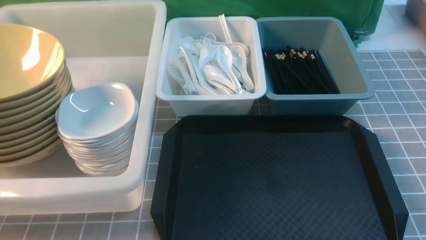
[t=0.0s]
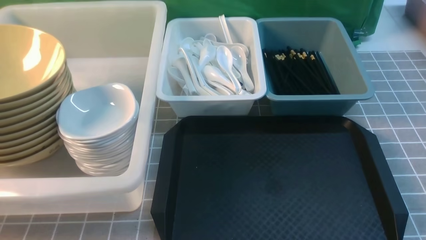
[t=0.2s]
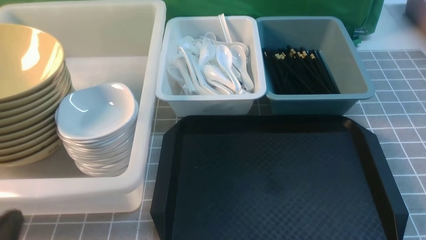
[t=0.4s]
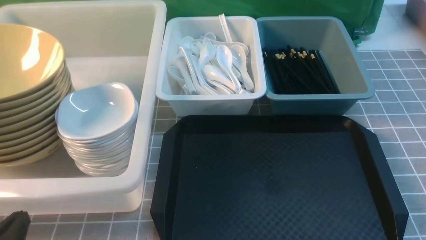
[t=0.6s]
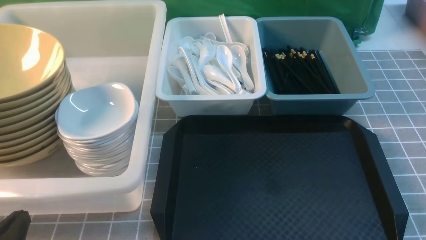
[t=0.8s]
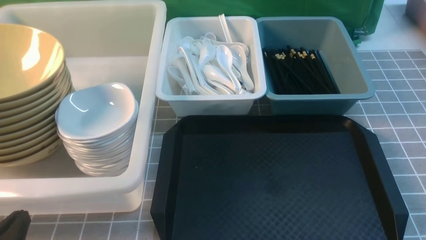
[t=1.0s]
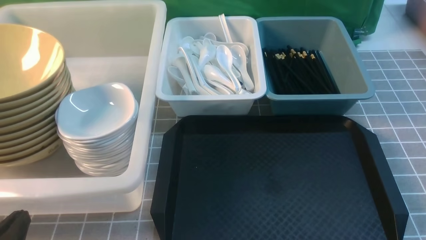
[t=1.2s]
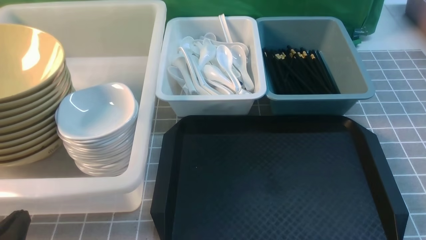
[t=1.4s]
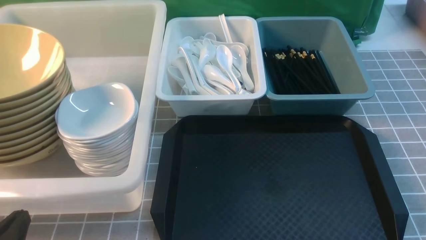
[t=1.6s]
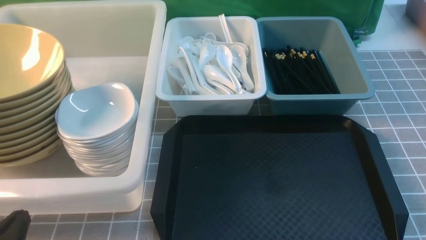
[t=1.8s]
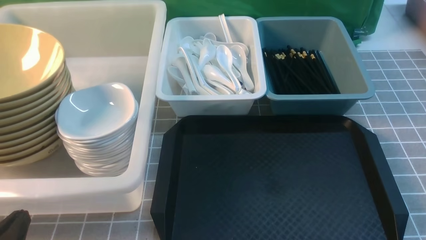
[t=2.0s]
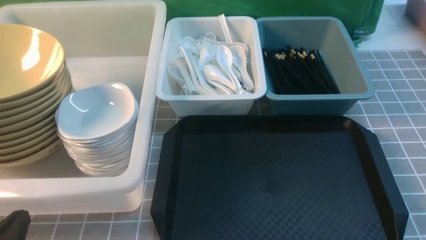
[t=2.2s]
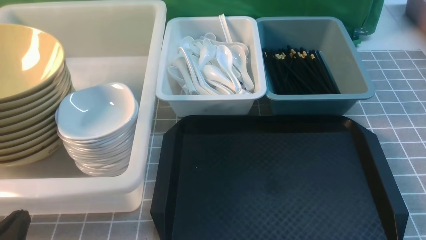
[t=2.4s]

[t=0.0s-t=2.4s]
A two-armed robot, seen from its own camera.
Task of the whole recording: on grey table put chopsticks spoon bowls plates into blue grey white boxes.
t=0.0s to t=1.2s: The left gripper moves downward, some 10 cm.
t=1.2s to t=2.4s: Both grippers stay put.

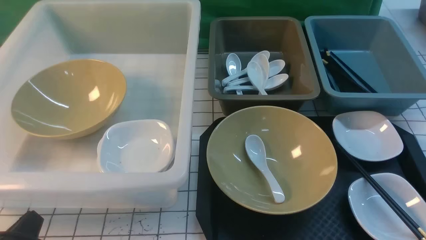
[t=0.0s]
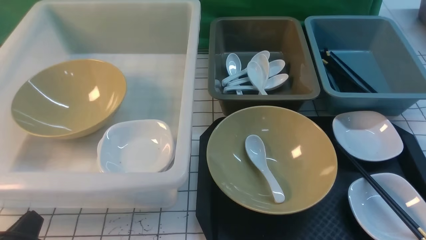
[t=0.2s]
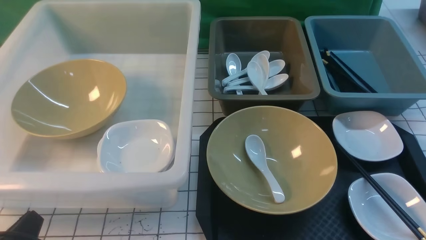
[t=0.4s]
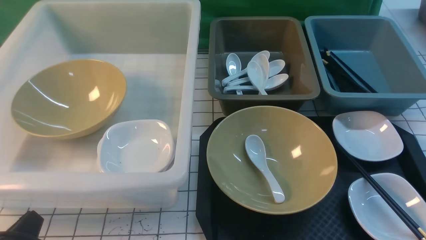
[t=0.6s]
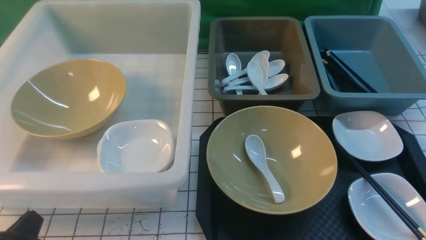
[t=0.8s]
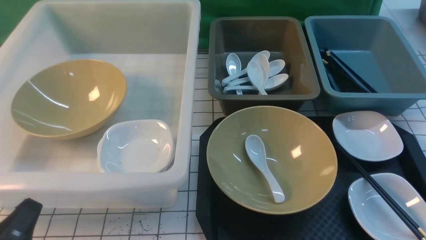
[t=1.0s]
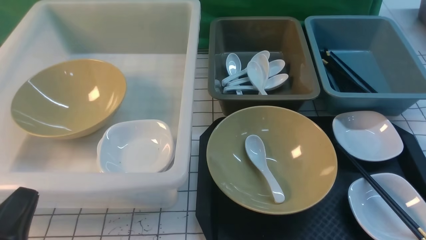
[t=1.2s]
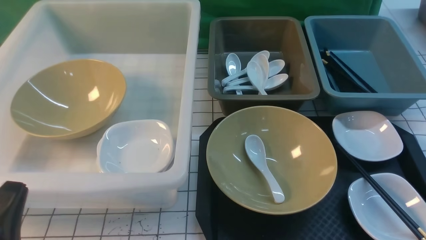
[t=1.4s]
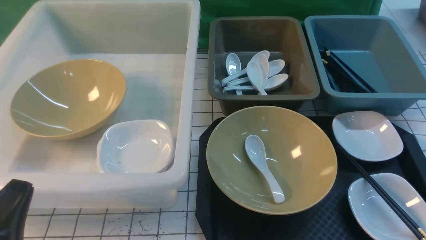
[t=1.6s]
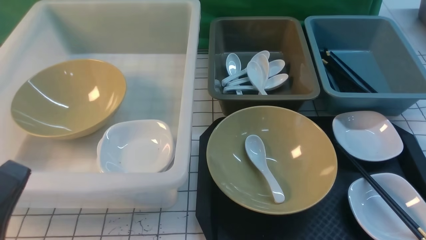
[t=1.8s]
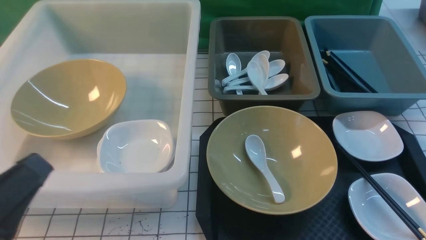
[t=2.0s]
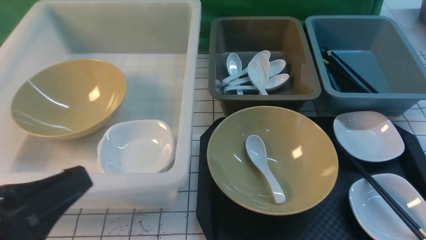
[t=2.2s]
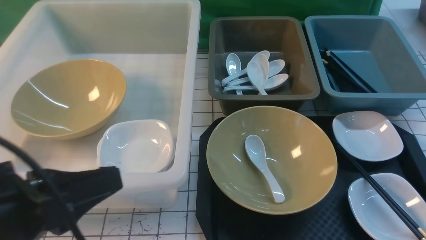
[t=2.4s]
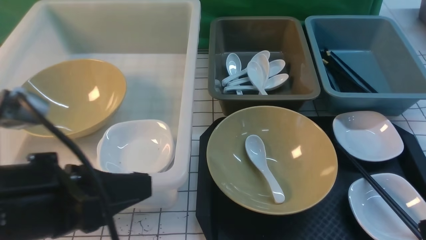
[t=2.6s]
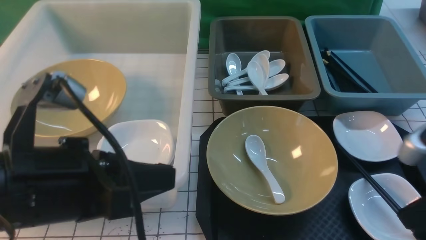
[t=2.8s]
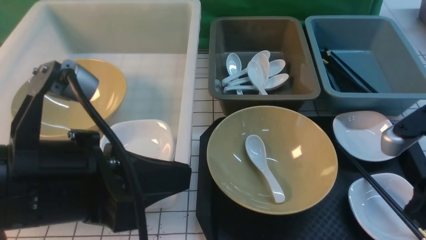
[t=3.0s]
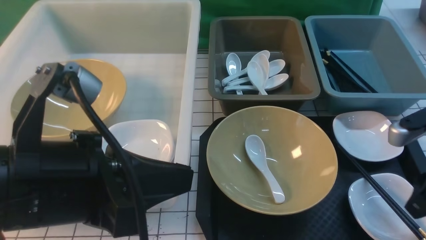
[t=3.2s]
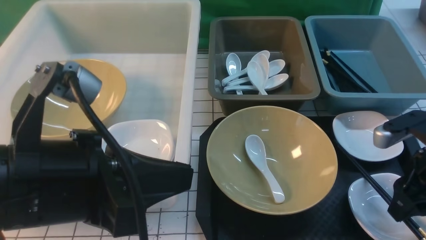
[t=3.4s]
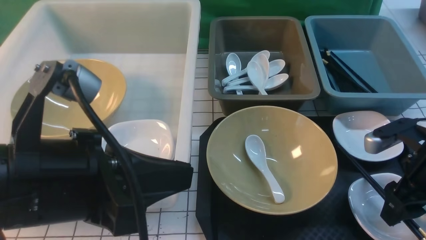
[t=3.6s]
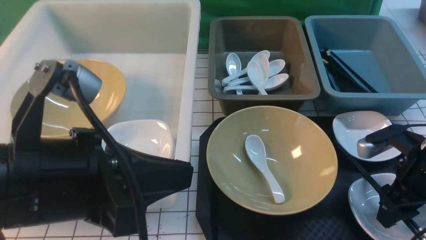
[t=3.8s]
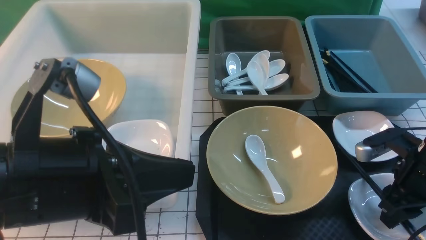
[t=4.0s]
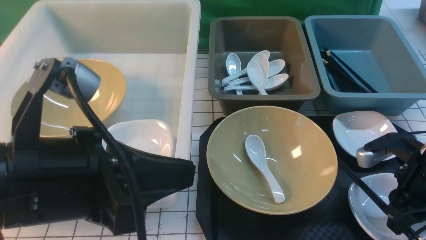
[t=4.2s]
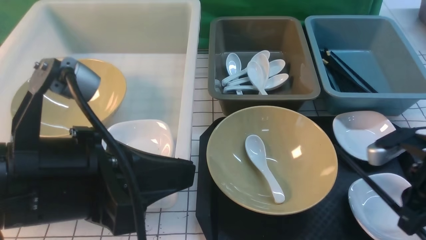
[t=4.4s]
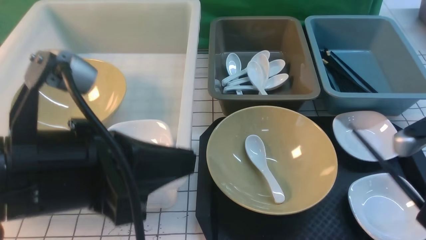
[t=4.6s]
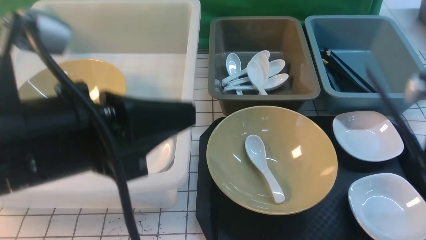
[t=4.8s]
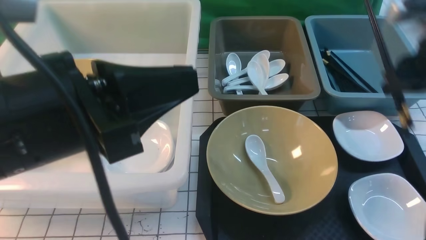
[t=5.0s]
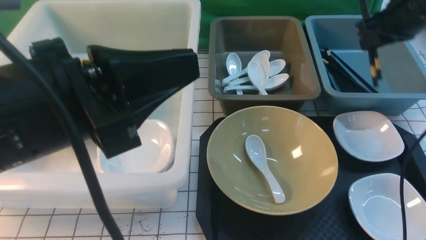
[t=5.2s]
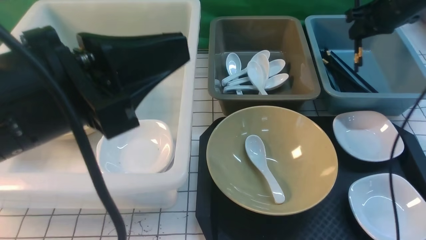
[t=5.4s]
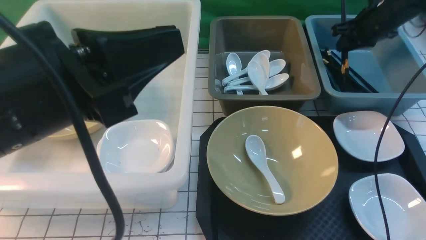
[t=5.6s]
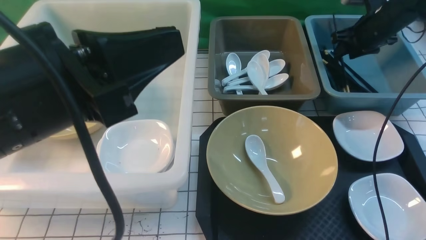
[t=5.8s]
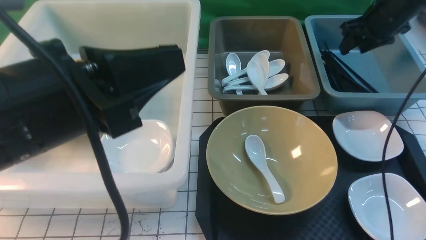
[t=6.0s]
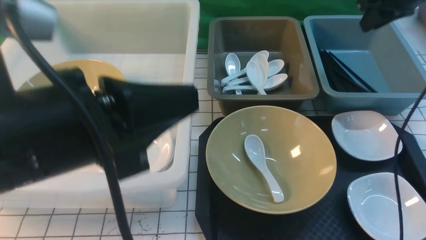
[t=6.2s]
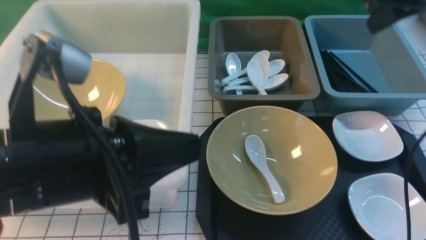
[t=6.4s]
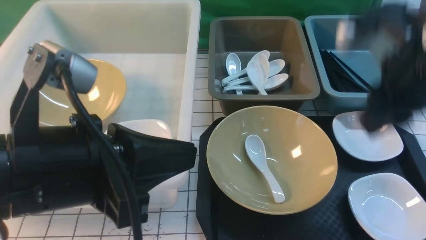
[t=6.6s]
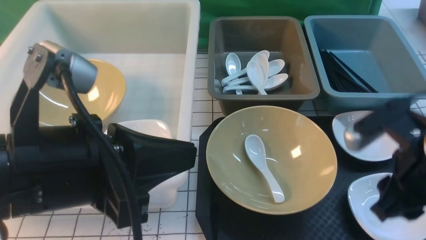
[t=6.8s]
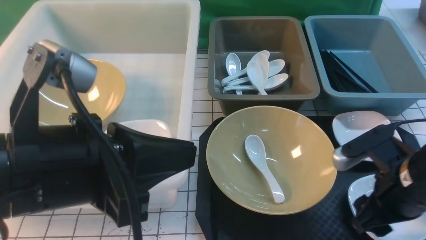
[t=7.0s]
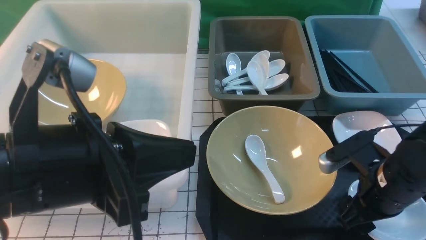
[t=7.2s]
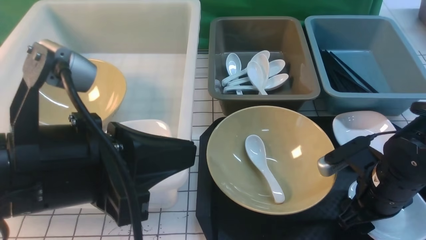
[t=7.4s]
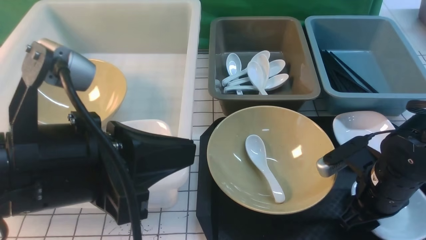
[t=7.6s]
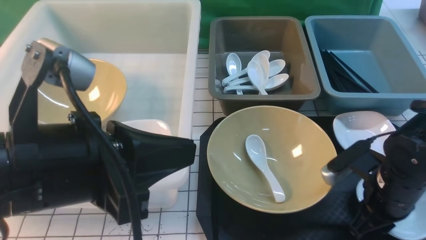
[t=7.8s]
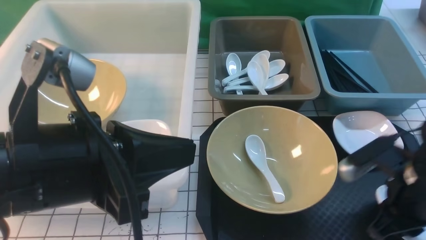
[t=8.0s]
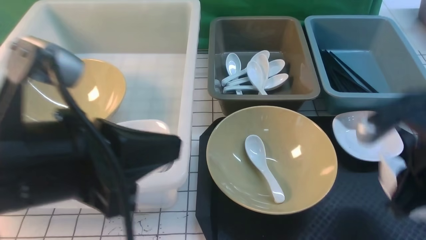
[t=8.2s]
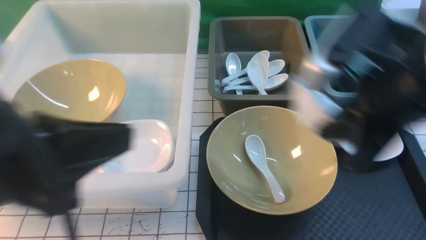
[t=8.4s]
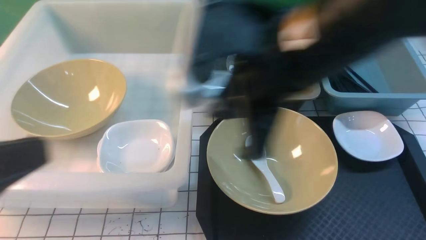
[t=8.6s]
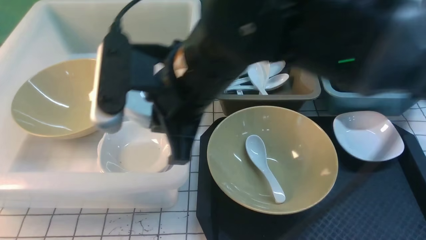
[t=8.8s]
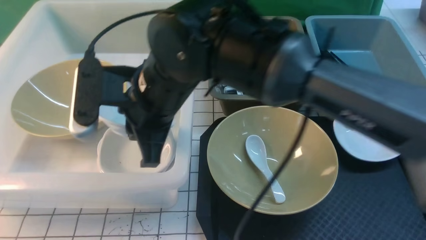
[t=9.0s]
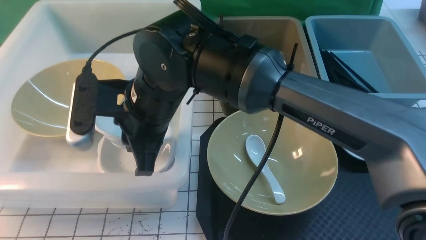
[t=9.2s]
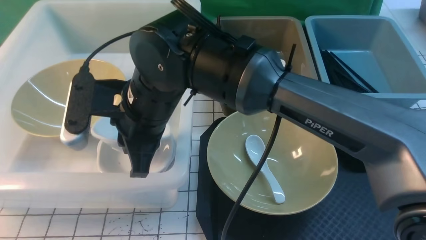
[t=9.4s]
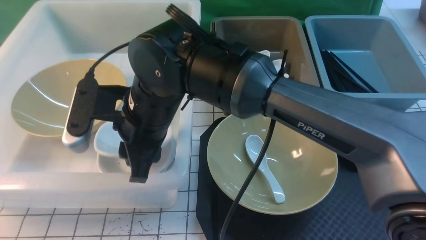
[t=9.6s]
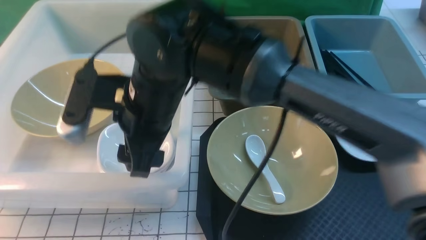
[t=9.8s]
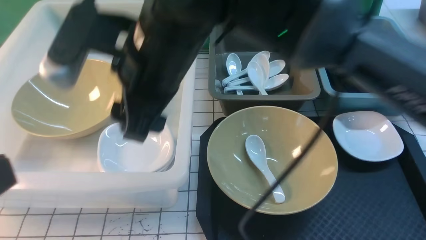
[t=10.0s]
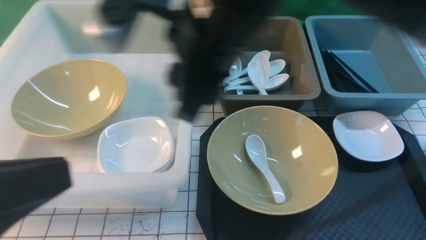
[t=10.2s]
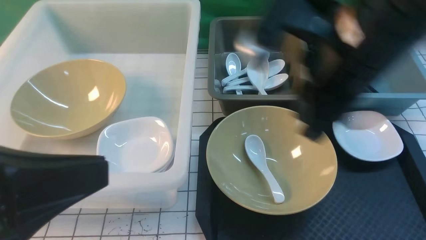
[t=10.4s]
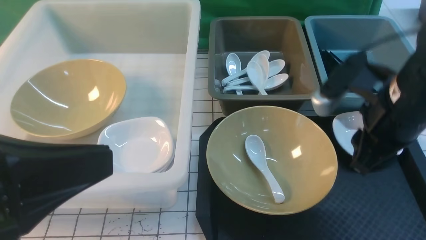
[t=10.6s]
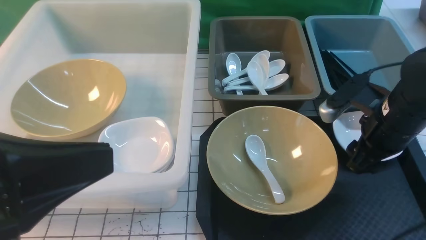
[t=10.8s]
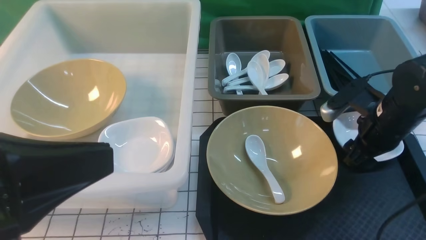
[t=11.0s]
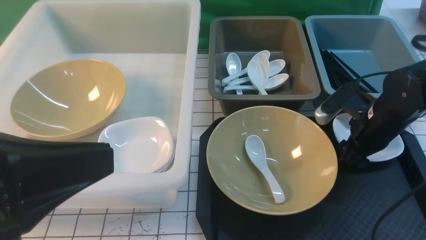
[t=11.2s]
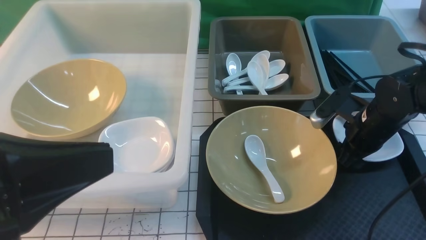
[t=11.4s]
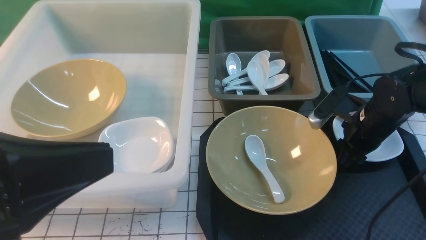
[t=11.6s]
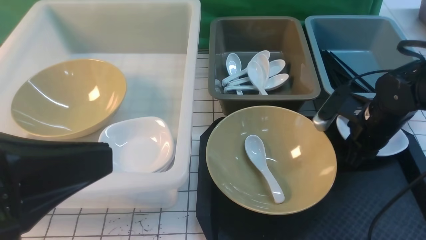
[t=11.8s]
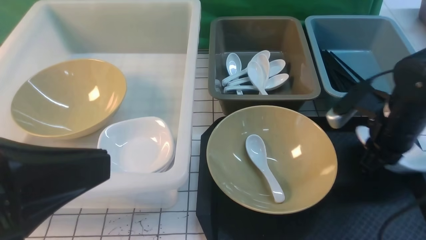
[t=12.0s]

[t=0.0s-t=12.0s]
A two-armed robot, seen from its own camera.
Task of the whole recording: on white black table put chopsticks spoon bowls plates into blue grey white boxes.
Step, t=0.0s to t=5.0s: use the right arm to grab the chopsticks.
Step, t=5.2s to t=6.0s: use the right arm to put the chopsticks into the small storage box on the right.
Step, t=6.2s to t=8.2s: use the right arm to grab the plate.
Step, t=8.4s to t=10.0s: use the right arm to put the plate into the large storage box on the left.
Step, t=10.2s to t=11.8s: use the right arm to grab the plate.
t=1.6s to t=3.0s: The left gripper is displaced upward, to the right and forward by roughly 15 cm; the right gripper shifts some 15 cm forward and upward.
t=3.0s to t=4.4s: The right gripper shifts roughly 5 cm downward, and opens, then closes once more.
t=4.4s to t=6.0s: The right gripper goes roughly 25 cm forward, and opens up.
t=6.0s to t=7.6s: The right gripper shifts approximately 30 cm backward and downward, and closes, then reopens.
t=7.6s to t=9.0s: The right gripper heads to the left and upward, covering approximately 35 cm, and closes up. The left gripper goes some 15 cm to the left and backward.
t=9.0s to t=10.4s: The right gripper is displaced to the right by roughly 20 cm, and opens; the left gripper heads to the right, covering about 5 cm.
t=10.4s to t=12.0s: The right gripper is displaced downward and to the right by approximately 15 cm, and closes its fingers.

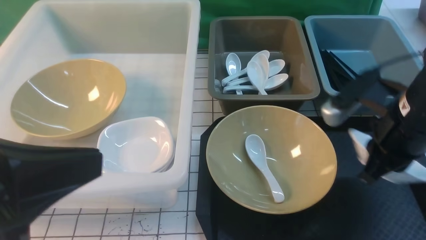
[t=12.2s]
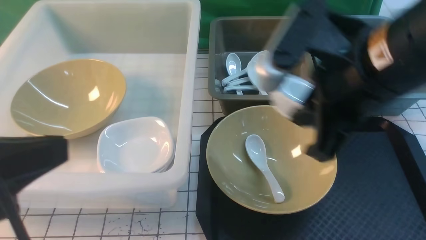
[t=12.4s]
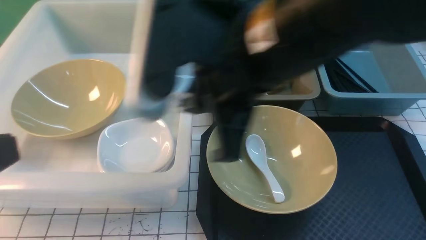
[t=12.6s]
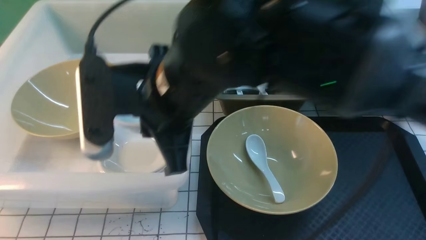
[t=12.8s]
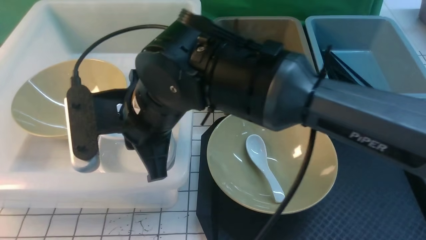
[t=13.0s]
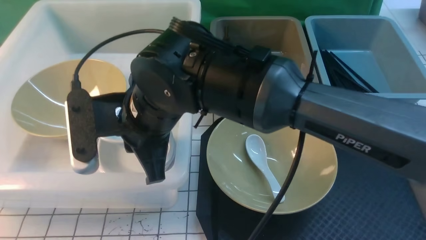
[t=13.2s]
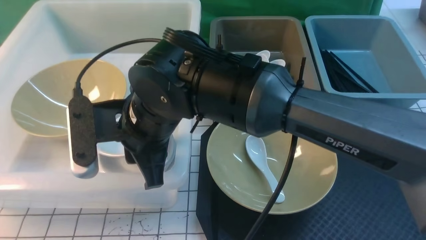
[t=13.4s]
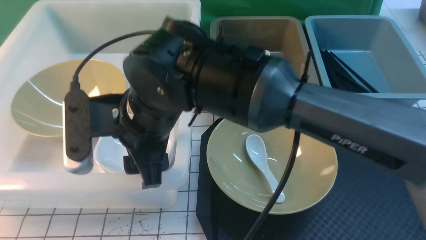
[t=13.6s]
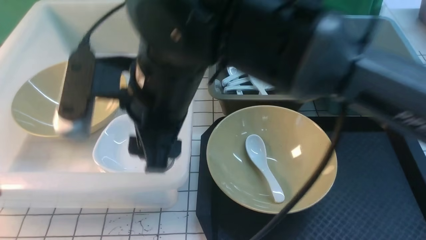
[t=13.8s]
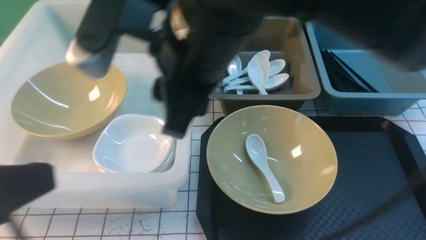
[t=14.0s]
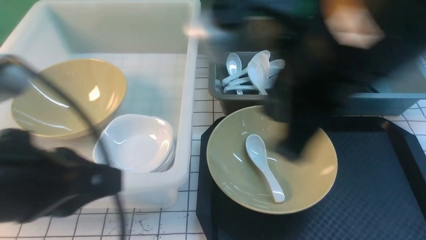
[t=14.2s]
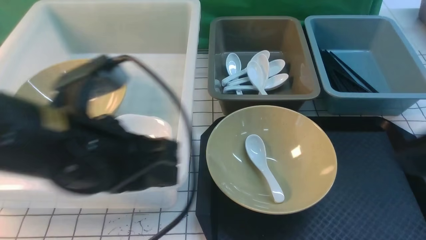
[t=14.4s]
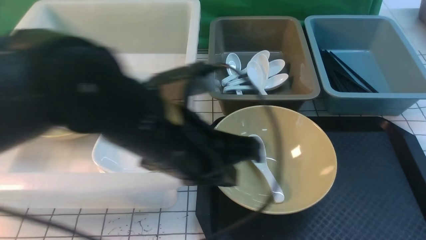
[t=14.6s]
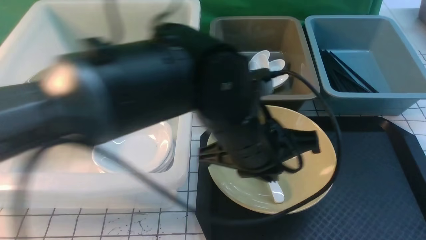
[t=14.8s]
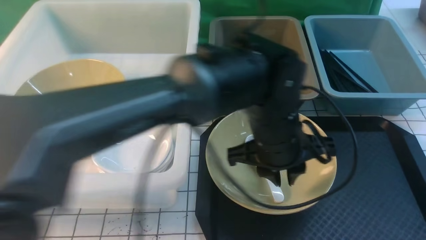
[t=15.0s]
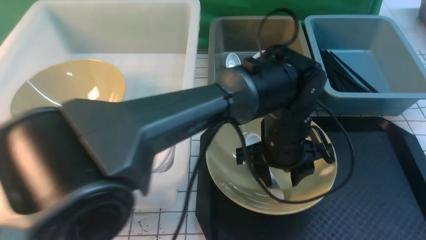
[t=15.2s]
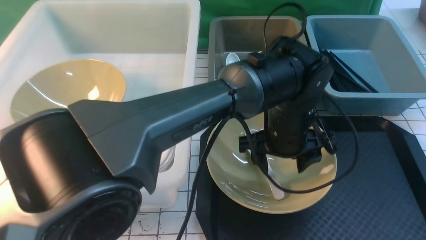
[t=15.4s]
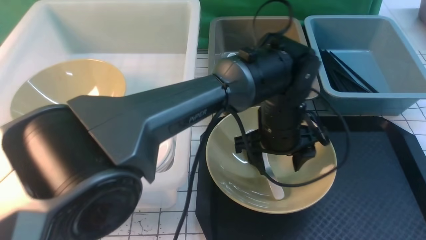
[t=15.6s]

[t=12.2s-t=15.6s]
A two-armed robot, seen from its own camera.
Task of the whole recording: on white black table put chopsticks spoon bowls plates into blue grey white boxes.
Step, t=12.2s to t=13.8s: use the right arm to put the plate into the large storage box on the left.
t=12.2s to t=13.8s: The right gripper shifts about 20 cm to the left, and opens its fingers.
t=13.8s to t=15.6s: The right gripper travels to the right and backward by about 40 cm, and closes. The left gripper moves to the right, forward and downward, some 50 cm, and opens.
